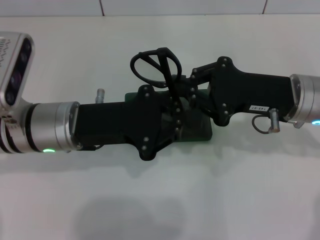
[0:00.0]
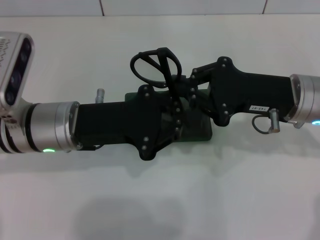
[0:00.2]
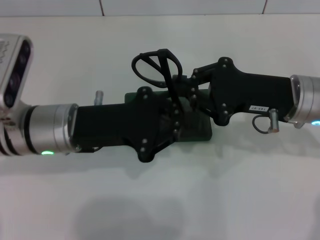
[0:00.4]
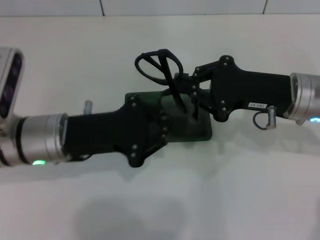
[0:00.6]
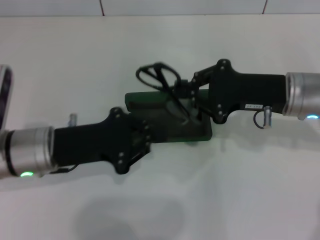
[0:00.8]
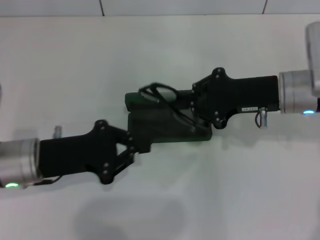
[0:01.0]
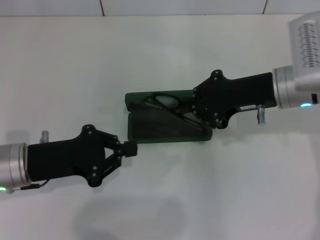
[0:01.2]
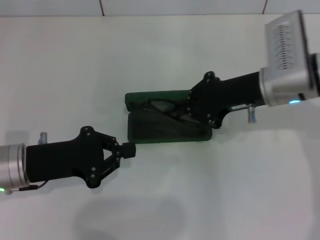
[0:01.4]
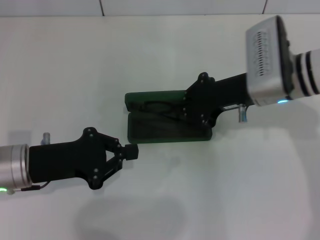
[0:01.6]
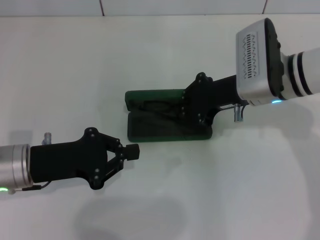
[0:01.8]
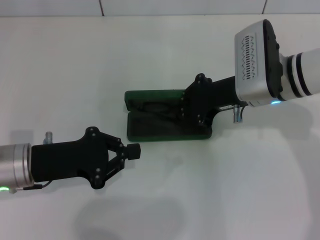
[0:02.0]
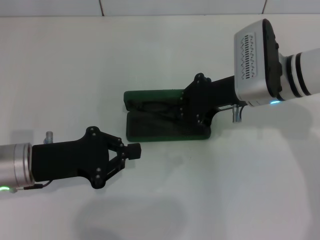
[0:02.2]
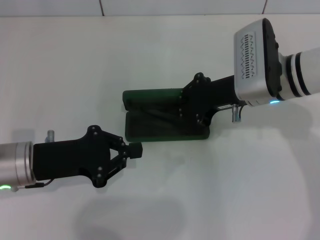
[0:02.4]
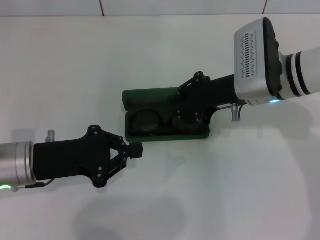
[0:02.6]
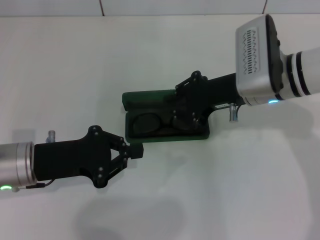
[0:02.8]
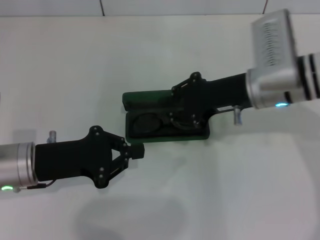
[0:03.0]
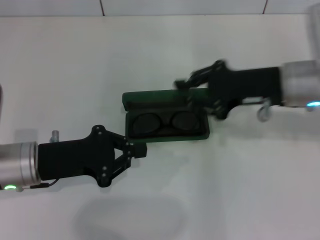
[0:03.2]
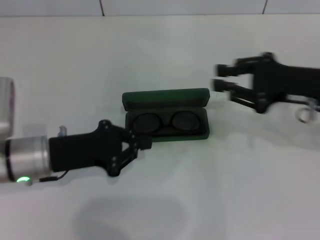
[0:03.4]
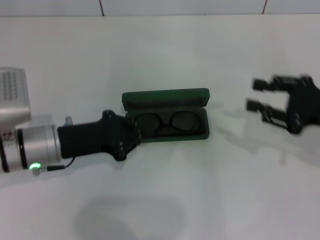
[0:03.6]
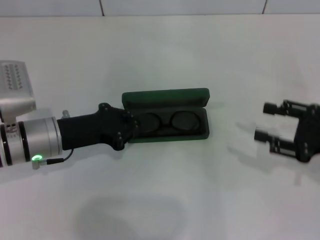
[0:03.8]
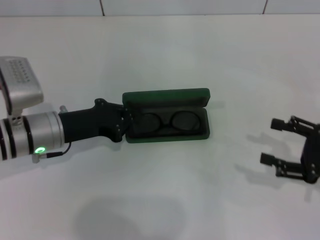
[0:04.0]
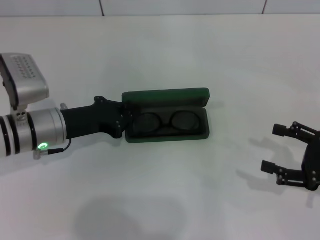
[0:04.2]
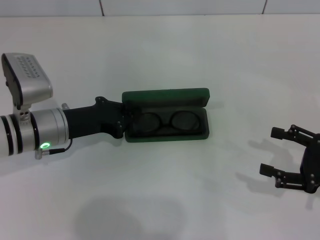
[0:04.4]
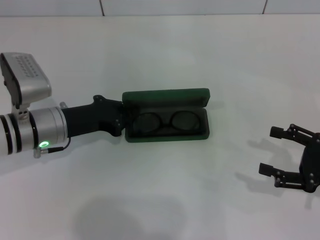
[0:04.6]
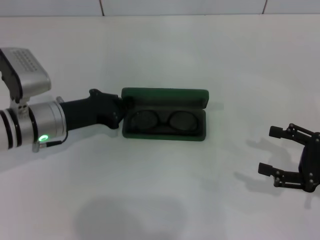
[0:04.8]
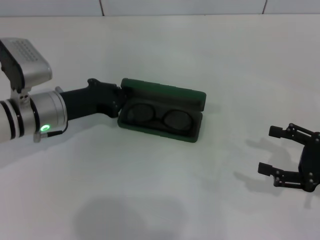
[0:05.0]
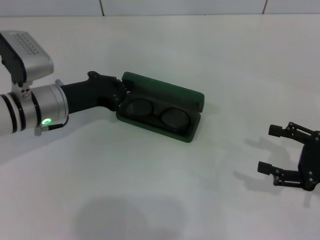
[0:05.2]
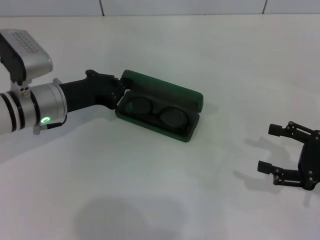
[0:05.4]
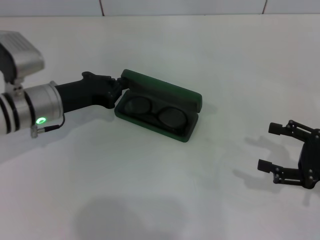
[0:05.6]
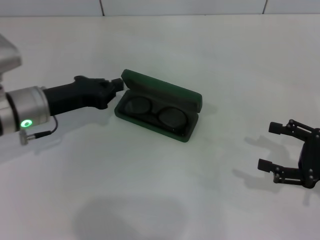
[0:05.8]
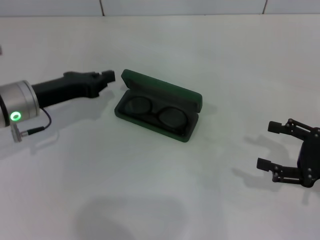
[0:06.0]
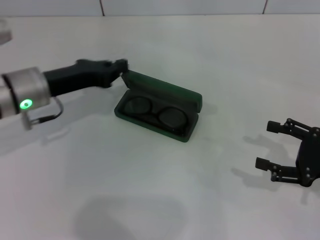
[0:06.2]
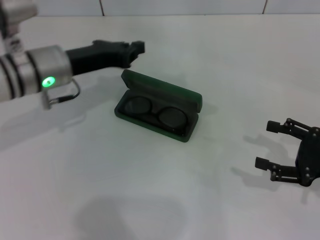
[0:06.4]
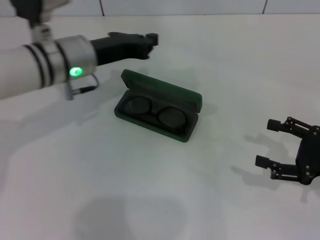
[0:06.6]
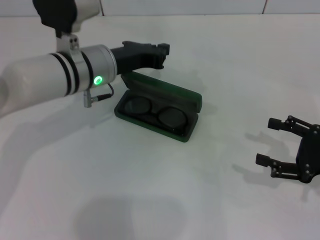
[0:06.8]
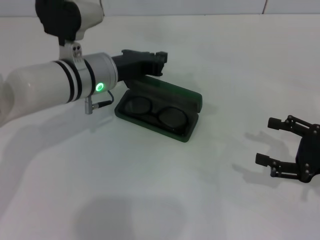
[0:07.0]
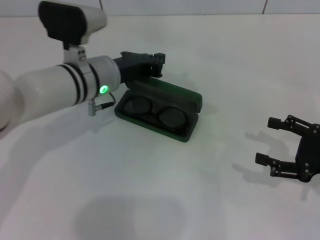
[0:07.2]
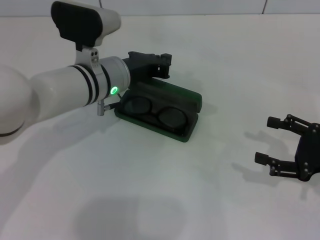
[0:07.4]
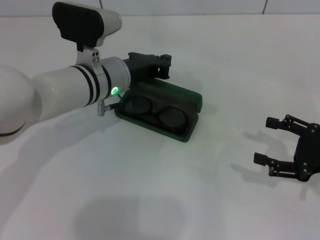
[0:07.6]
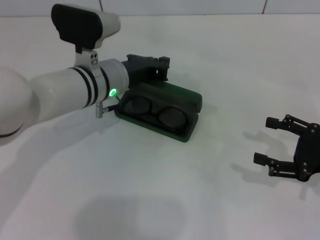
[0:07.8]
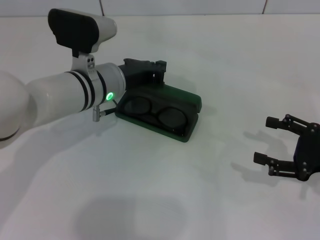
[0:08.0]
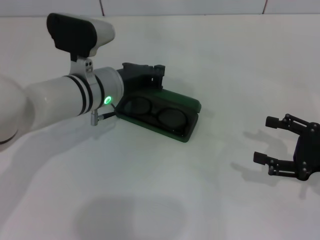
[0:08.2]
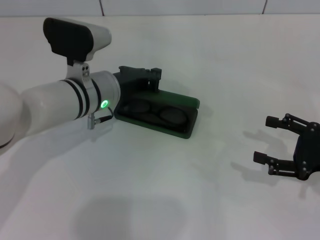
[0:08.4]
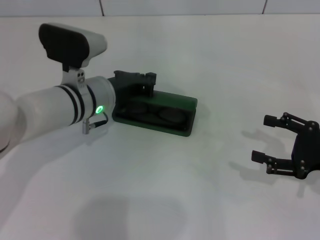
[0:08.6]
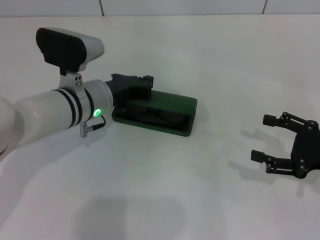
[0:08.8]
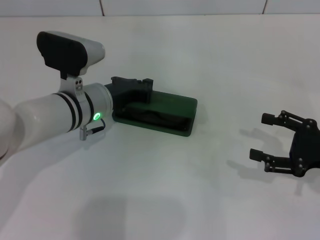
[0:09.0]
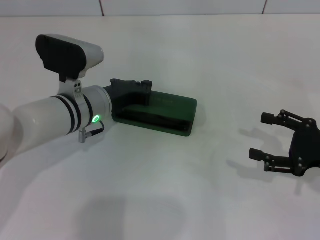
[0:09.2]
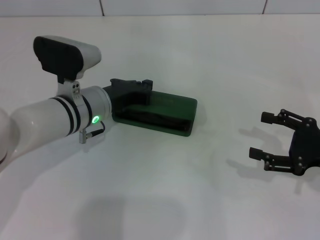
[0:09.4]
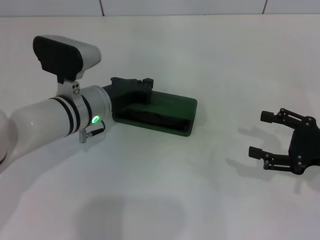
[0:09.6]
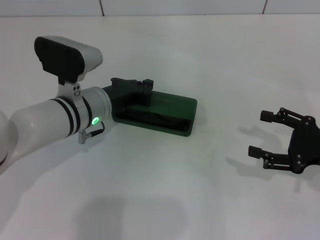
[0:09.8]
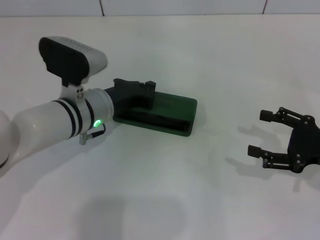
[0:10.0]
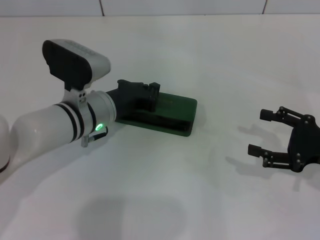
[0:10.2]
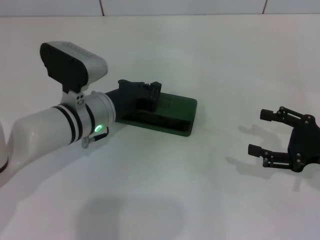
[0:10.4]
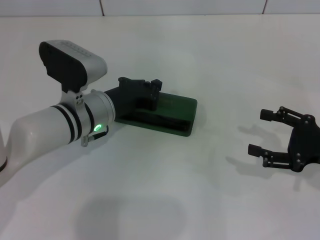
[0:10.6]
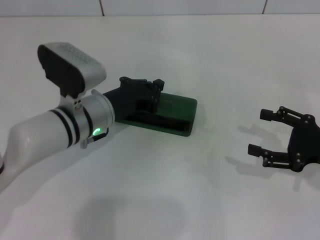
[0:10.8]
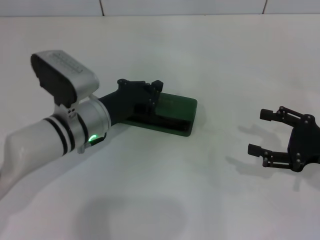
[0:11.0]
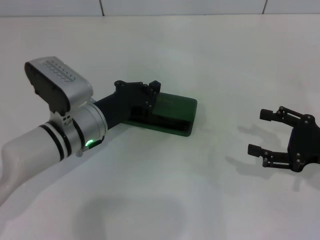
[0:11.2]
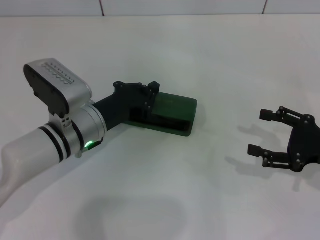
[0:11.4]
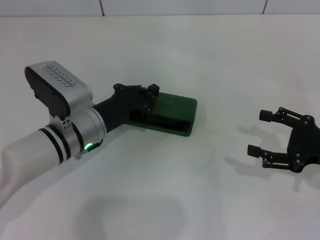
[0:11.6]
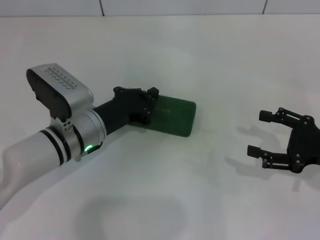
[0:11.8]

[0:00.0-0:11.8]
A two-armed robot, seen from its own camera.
Step, 0:00.0 to 0:02.8: Put the glasses into the case with your right hand.
0:00.0 to 0:01.4: The right gripper ends up about 5 cm from where it was. Meanwhile the left gripper shifts some 10 cm to the left.
0:01.4 to 0:03.0: The grippers make only small movements.
0:03.0 to 0:04.4: The left gripper heads forward, covering approximately 5 cm, while the right gripper shifts some 25 cm to the right, backward and downward, and opens its fingers.
0:04.4 to 0:06.0: The left gripper changes place by roughly 5 cm.
0:06.0 to 0:07.4: The left gripper travels to the right by roughly 15 cm.
0:07.4 to 0:10.4: The grippers stay close to where they were, moving slightly.
0:10.4 to 0:11.8: The grippers move only a little.

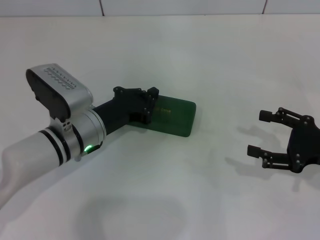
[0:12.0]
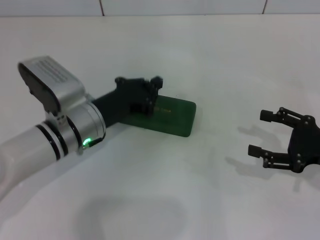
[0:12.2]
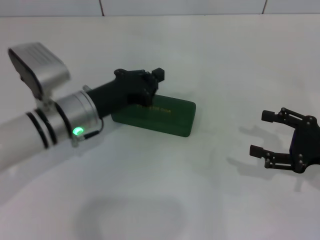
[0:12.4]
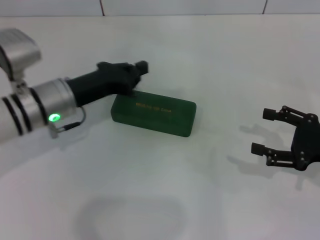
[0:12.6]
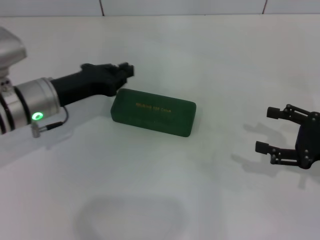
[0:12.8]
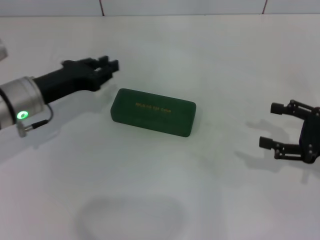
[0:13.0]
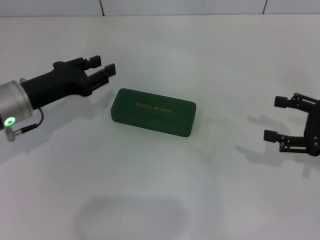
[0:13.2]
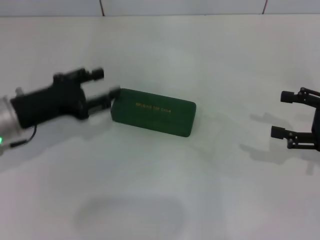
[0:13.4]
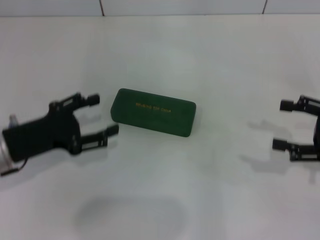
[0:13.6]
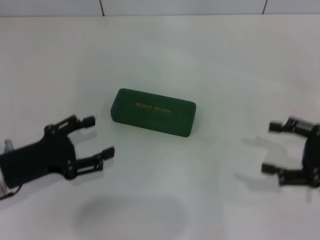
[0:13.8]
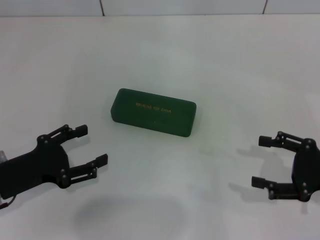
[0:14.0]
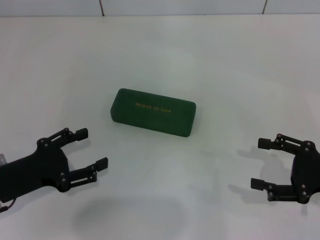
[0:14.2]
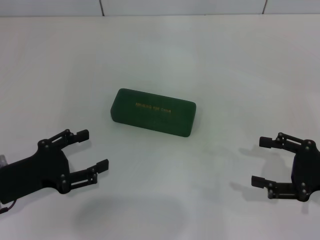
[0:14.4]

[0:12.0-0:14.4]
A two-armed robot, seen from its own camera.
0:12.0 to 0:13.2: The left gripper is displaced to the left and upward by approximately 10 cm, and opens up.
0:13.2 to 0:14.4: The left gripper moves backward, roughly 10 cm, and opens up, while the right gripper ends up some 5 cm from where it was.

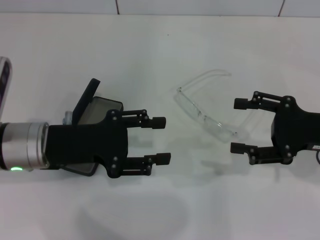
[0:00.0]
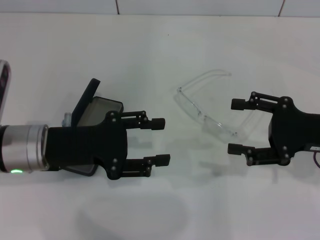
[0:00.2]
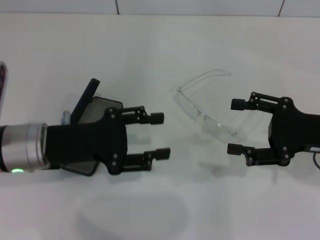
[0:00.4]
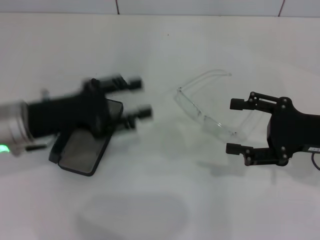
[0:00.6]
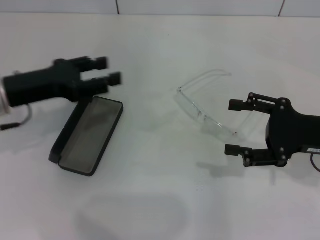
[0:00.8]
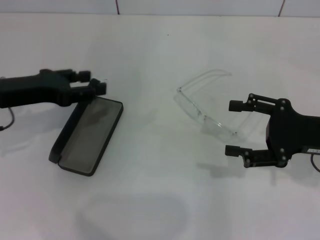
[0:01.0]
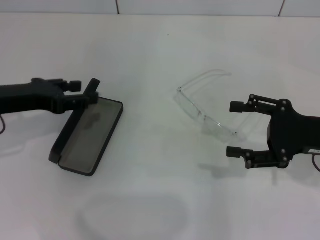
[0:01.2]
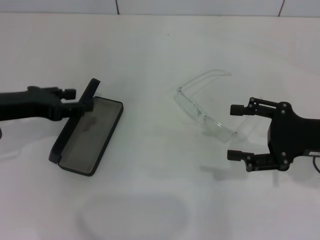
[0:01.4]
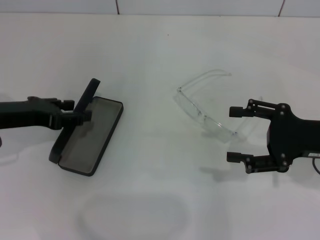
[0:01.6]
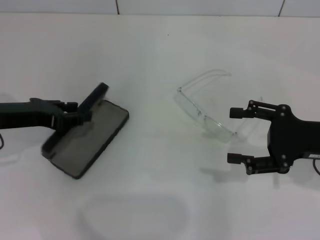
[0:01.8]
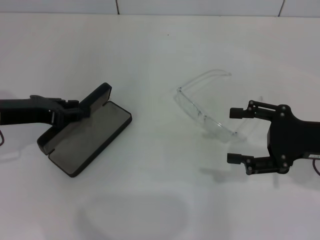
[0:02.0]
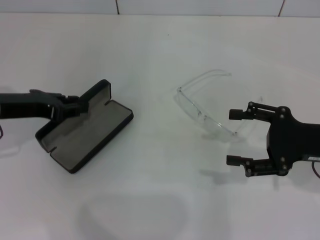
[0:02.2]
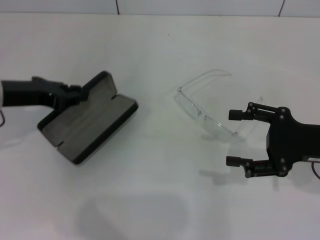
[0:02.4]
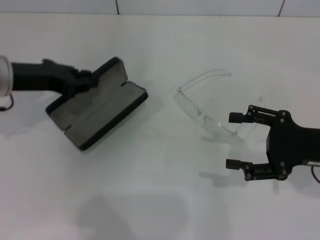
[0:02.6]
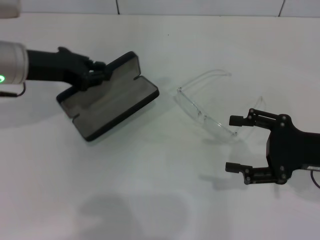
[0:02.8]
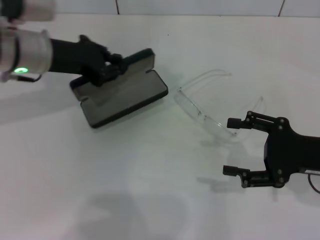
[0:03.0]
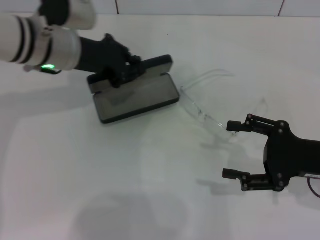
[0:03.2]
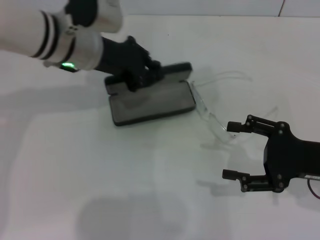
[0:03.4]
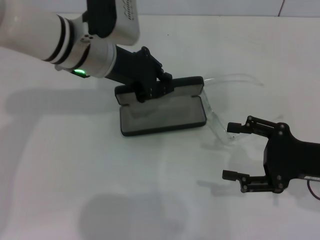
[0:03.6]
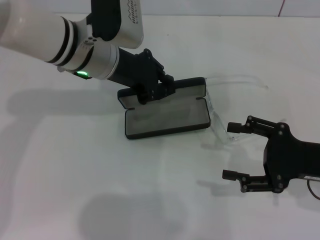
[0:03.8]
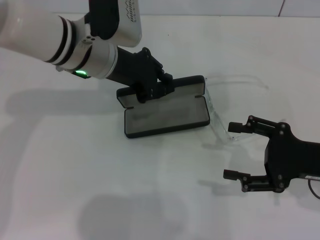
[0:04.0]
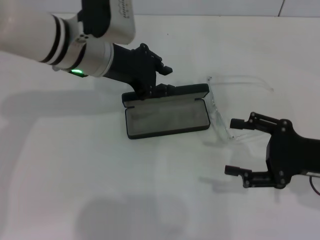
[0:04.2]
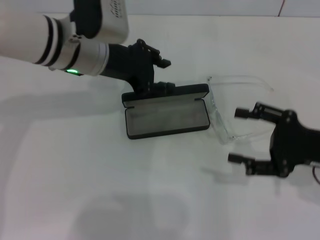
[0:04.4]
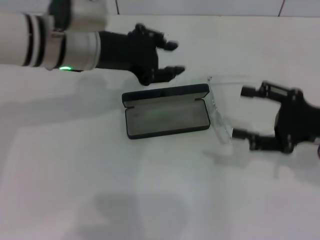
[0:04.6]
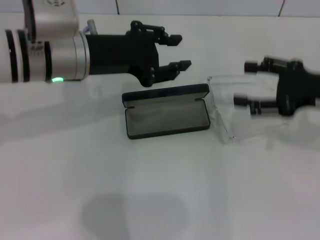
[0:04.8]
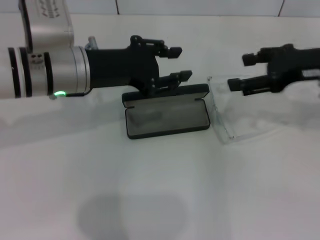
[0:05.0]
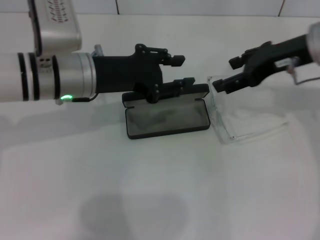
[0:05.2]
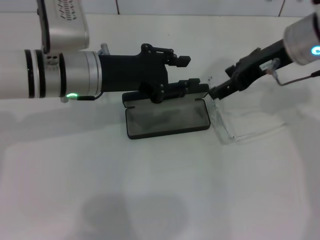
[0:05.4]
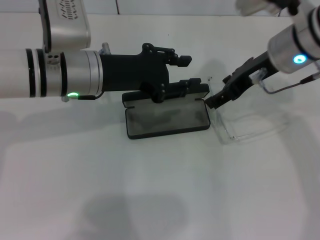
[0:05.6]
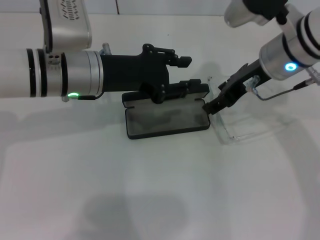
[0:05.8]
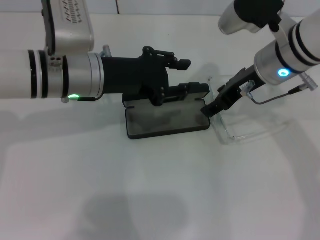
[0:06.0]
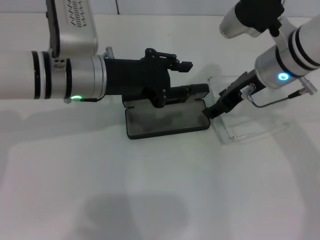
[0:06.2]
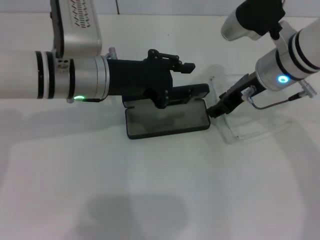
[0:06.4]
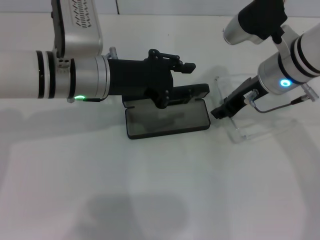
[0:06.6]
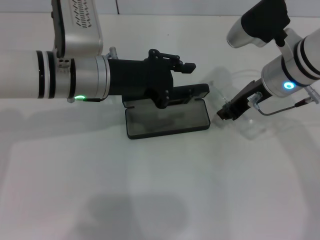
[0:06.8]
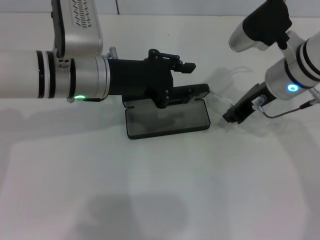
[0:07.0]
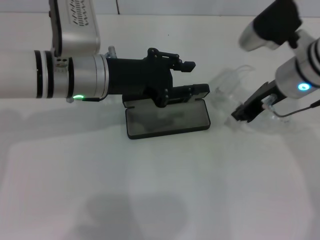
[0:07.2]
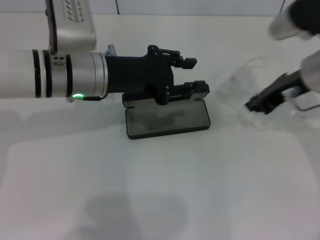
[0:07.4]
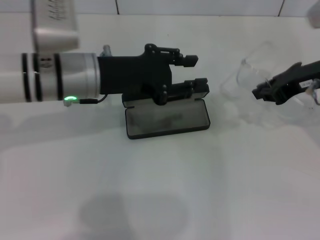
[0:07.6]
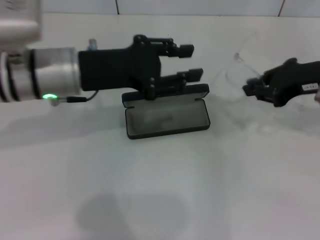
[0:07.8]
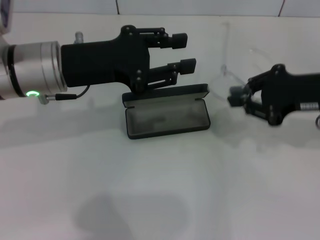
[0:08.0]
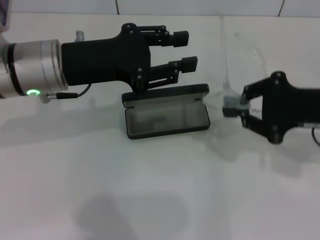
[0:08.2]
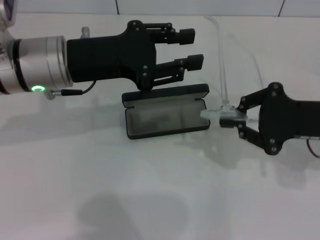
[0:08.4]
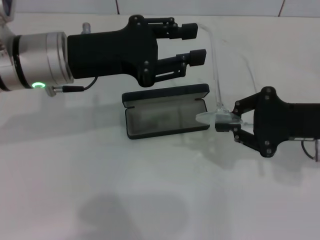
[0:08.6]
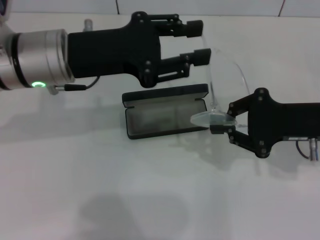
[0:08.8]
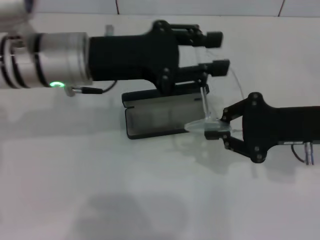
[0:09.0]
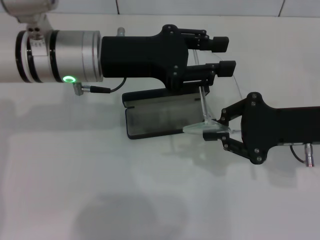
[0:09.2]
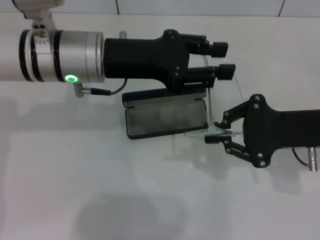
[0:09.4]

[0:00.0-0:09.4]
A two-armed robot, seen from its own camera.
Step, 0:00.0 to 0:02.2: Grab the glasses case with your left hand.
Step, 0:02.4 to 0:04.0: Place the glasses case in the center of the table with your left hand.
Step, 0:04.2 to 0:07.0: Grab the eyeglass frame with your right hand.
0:00.0 to 0:01.6: The left gripper shifts about 5 cm to the left.
0:01.6 to 0:03.2: The left gripper shifts roughly 15 cm to the right and forward, and closes up.
0:03.2 to 0:04.8: The right gripper shifts about 10 cm upward and forward. The left gripper shifts by about 5 cm, and opens up.
0:04.8 to 0:06.2: The right gripper heads to the left and forward, covering approximately 15 cm.
0:06.2 to 0:07.8: The right gripper travels to the right by some 10 cm, and closes up.
0:07.8 to 0:09.4: The right gripper shifts some 5 cm backward.
